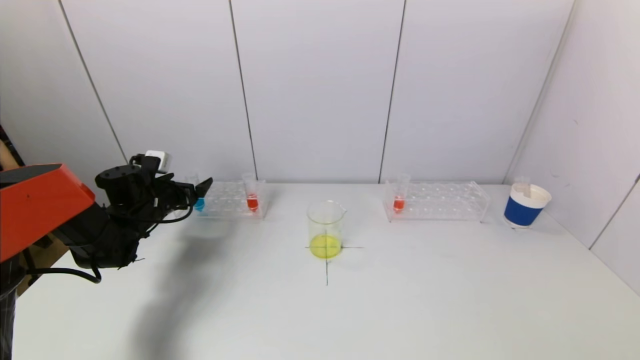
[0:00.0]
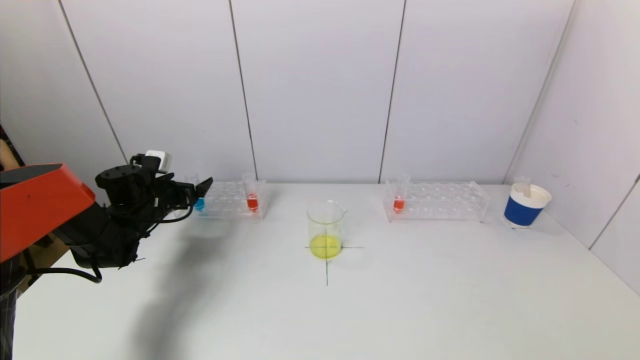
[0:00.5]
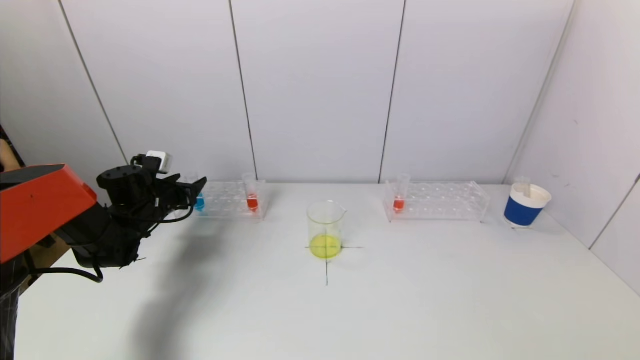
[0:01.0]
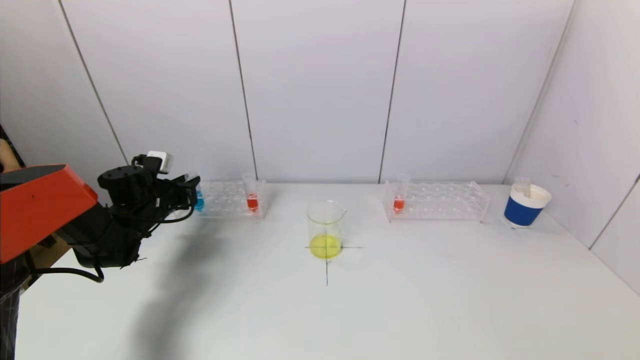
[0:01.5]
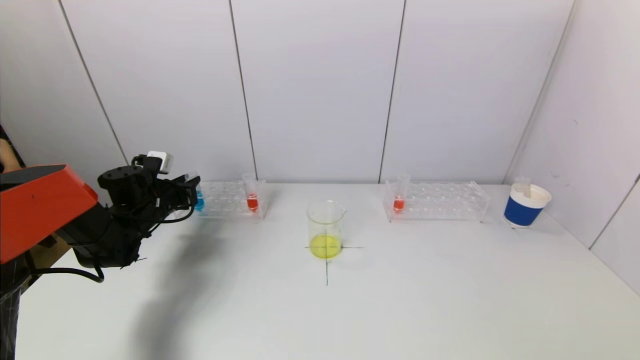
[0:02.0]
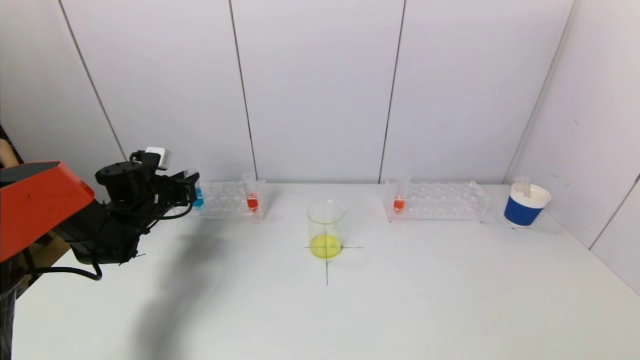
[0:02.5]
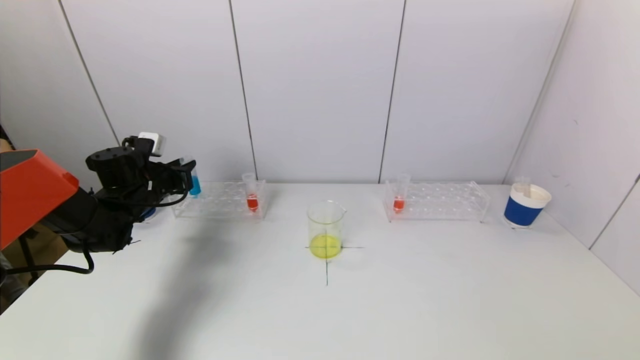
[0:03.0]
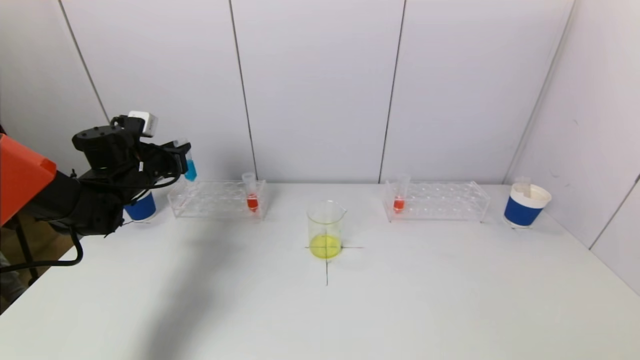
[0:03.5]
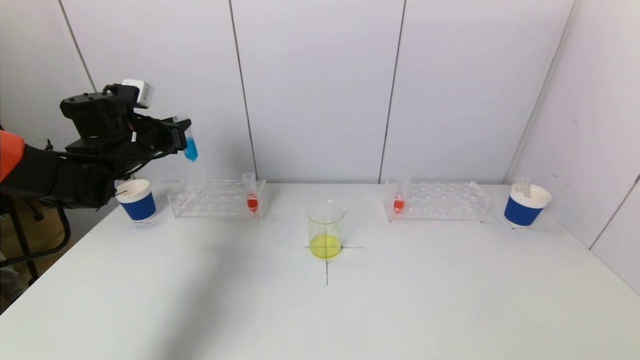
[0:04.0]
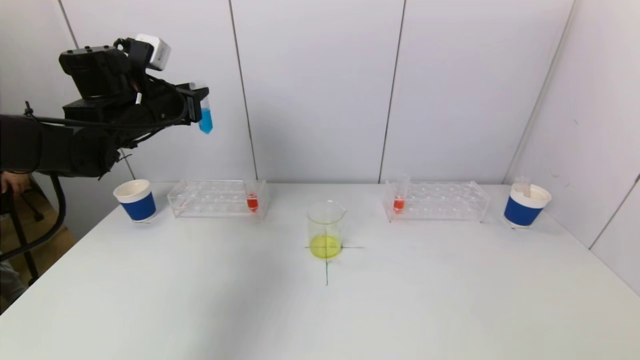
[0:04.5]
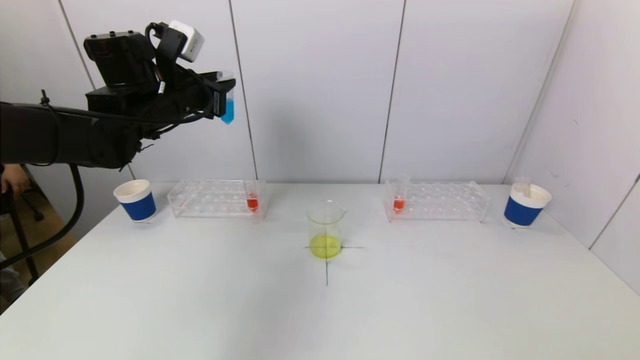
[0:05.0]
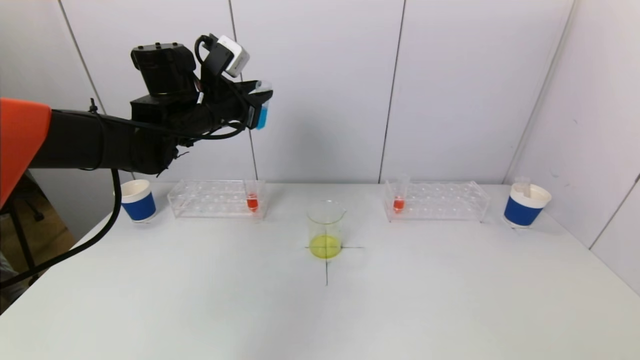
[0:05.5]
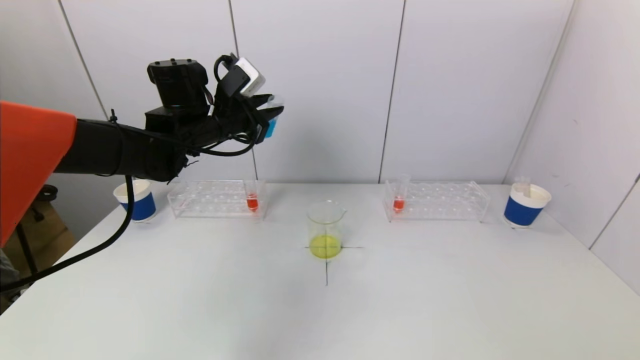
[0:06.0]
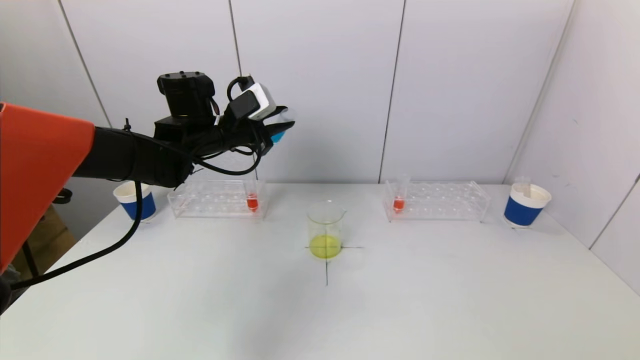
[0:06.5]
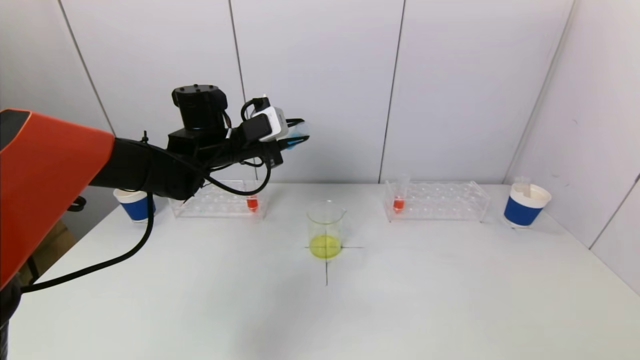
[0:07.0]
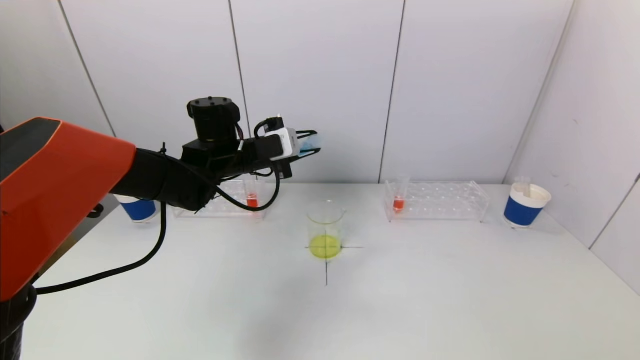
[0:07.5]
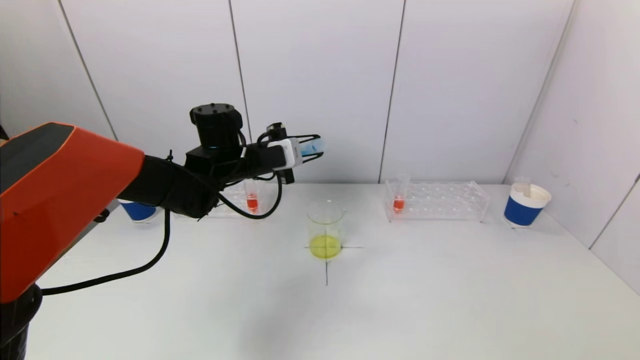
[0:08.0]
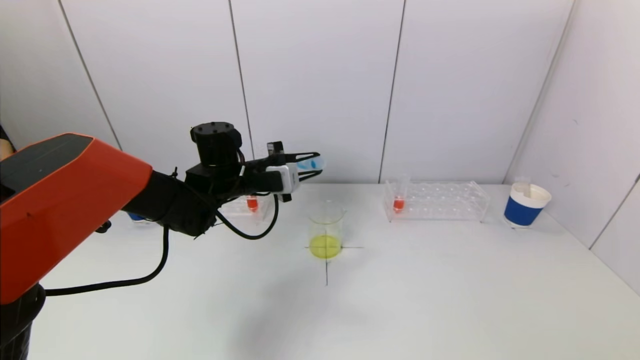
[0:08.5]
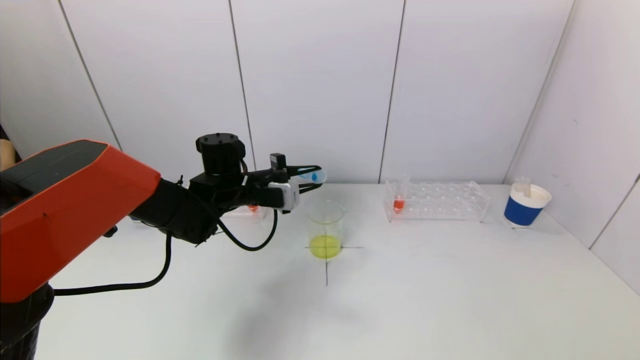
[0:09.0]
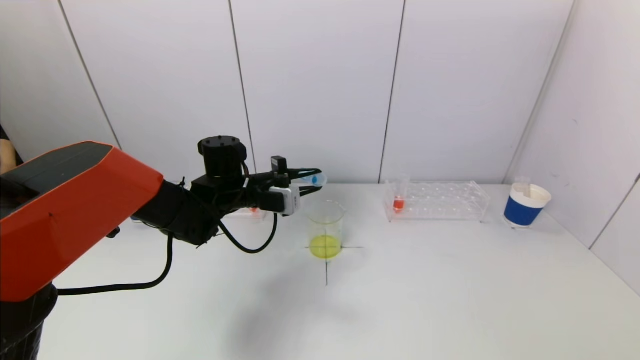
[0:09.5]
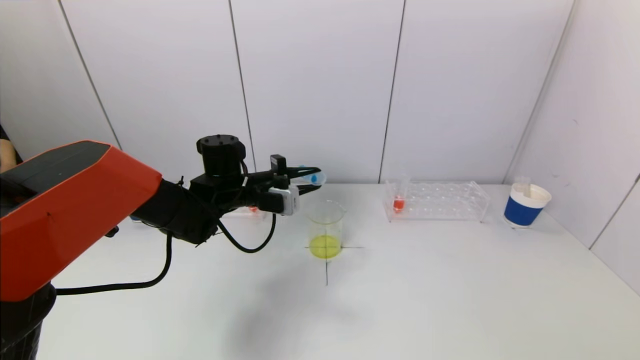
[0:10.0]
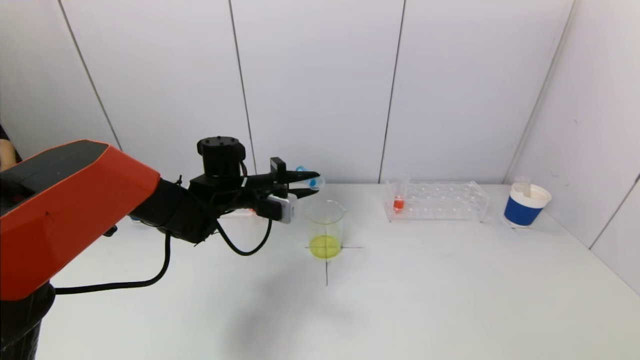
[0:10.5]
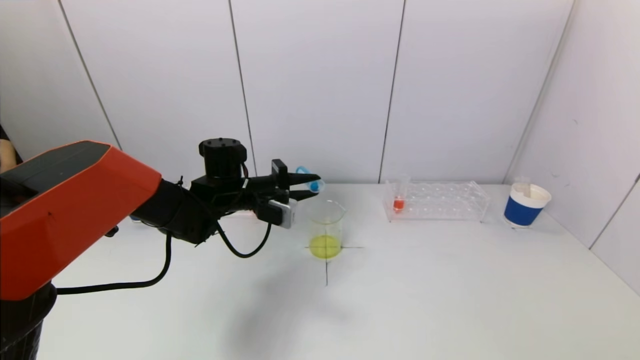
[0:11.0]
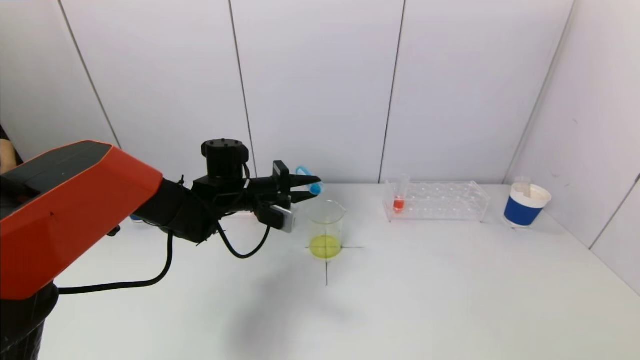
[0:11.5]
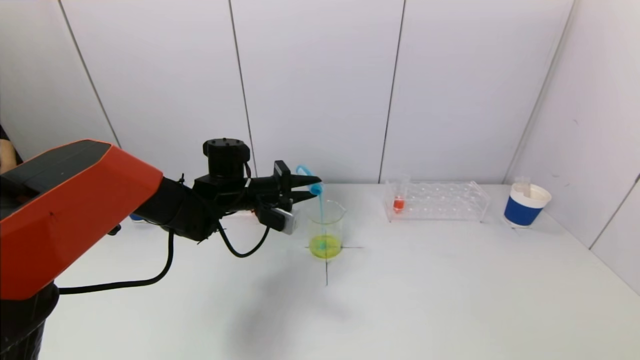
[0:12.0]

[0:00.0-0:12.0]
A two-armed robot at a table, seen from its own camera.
Task of the whole recording: pick up a test tube with pigment on left test tube rack and a test tube with pigment on right test tube rack by grippers and pour them into the beaker.
0:00.0 to 0:02.0: The left gripper closes up.
0:02.0 to 0:04.0: The left gripper heads upward, covering approximately 15 cm.
0:04.0 to 0:06.0: The left gripper moves to the right, roughly 15 cm.
0:06.0 to 0:08.0: The left gripper travels downward by some 5 cm.
0:08.0 to 0:10.0: The left gripper moves about 5 cm.
0:10.0 to 0:12.0: The grippers make only small movements.

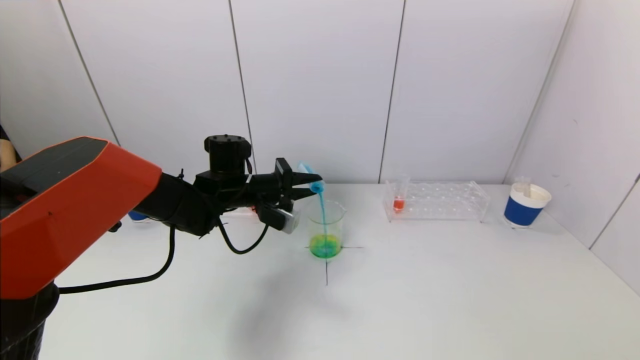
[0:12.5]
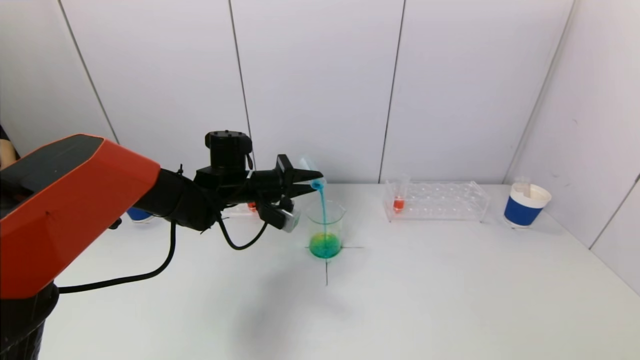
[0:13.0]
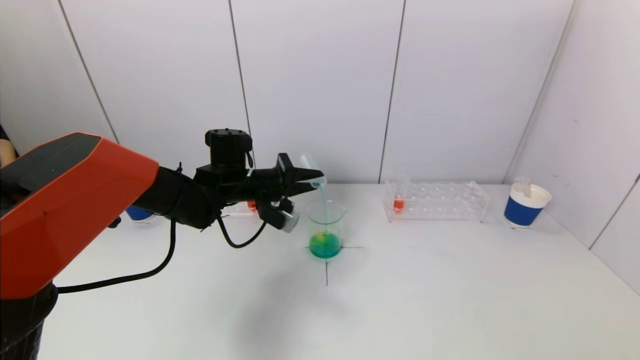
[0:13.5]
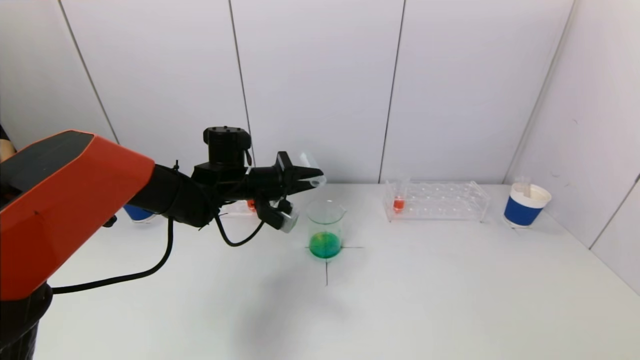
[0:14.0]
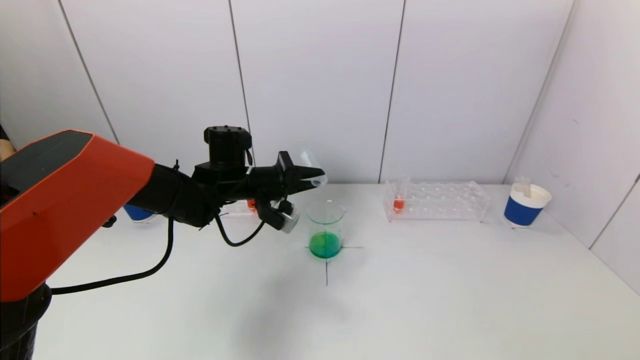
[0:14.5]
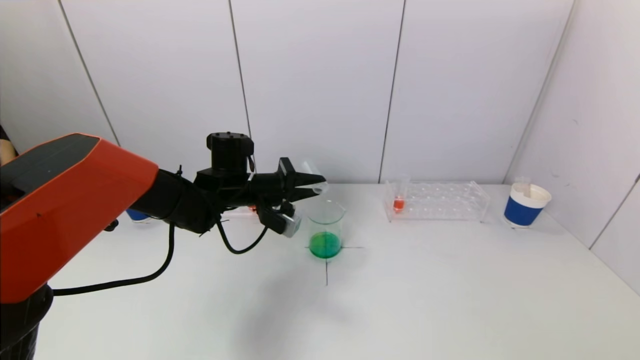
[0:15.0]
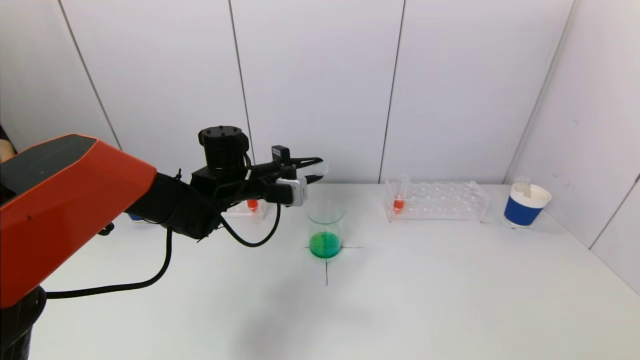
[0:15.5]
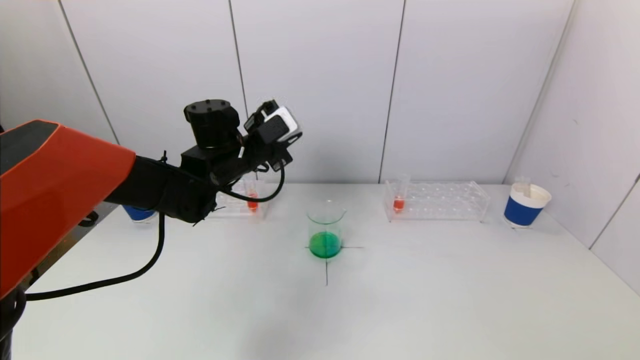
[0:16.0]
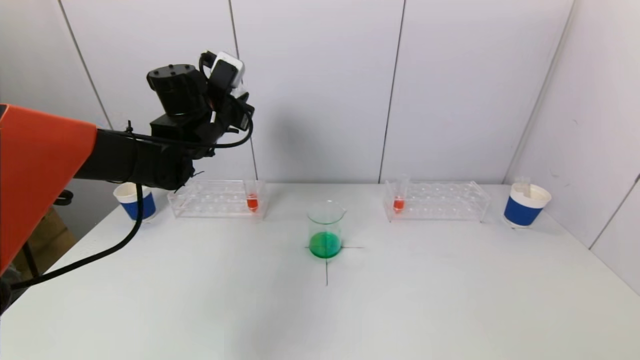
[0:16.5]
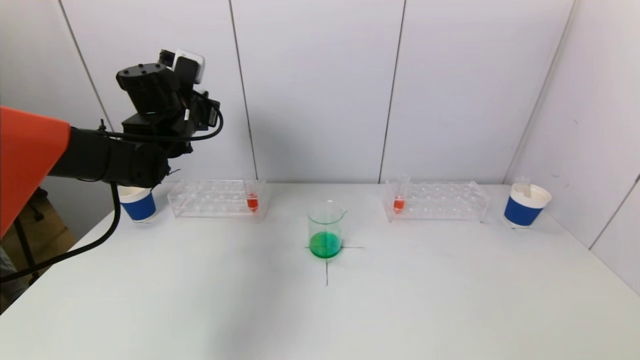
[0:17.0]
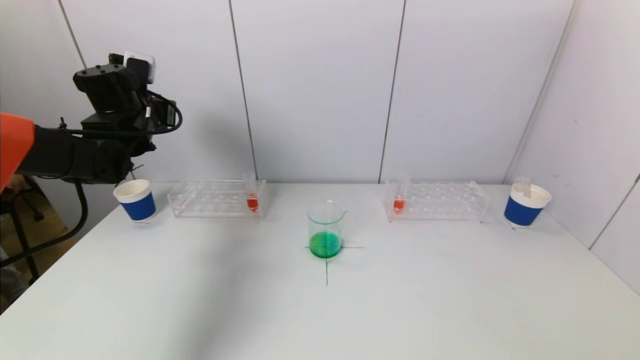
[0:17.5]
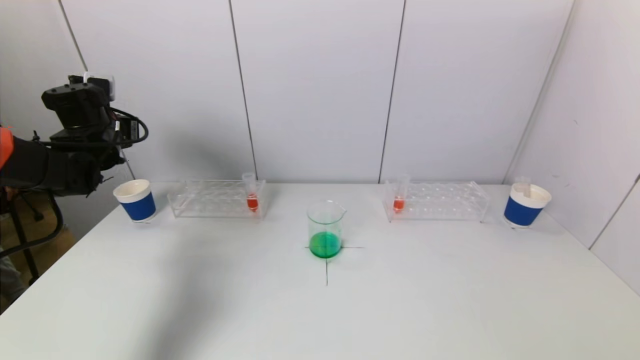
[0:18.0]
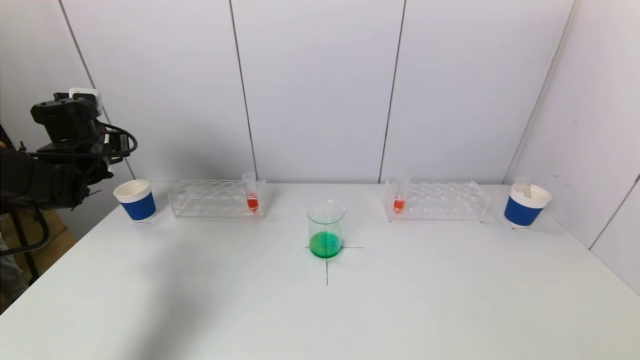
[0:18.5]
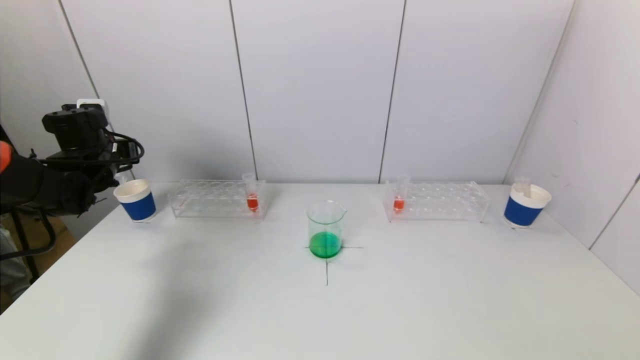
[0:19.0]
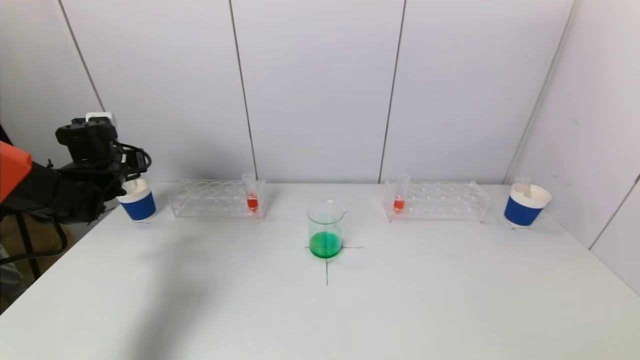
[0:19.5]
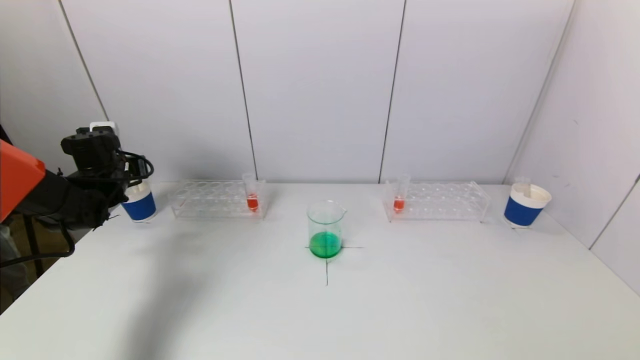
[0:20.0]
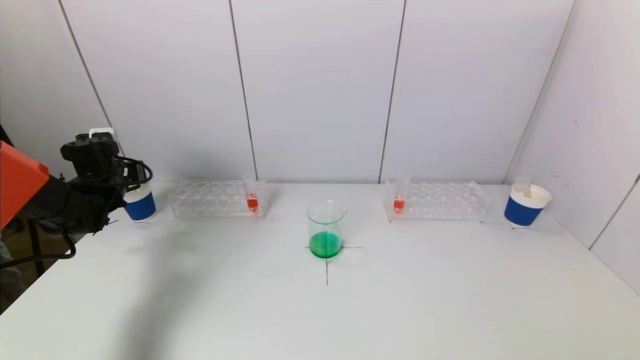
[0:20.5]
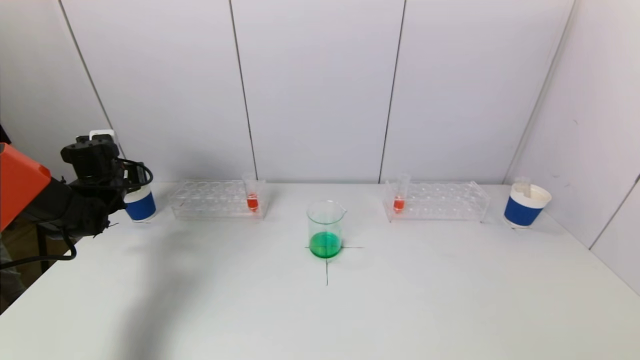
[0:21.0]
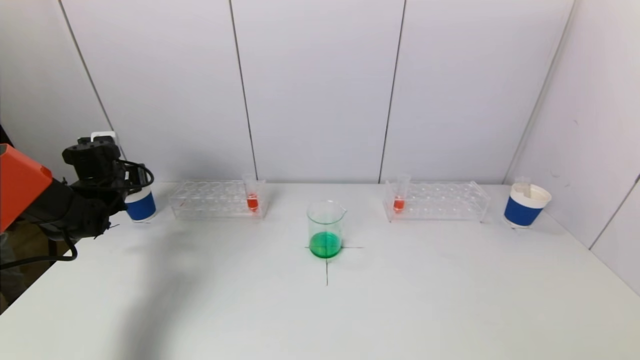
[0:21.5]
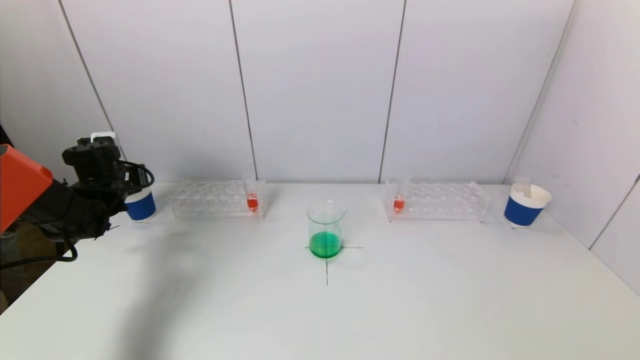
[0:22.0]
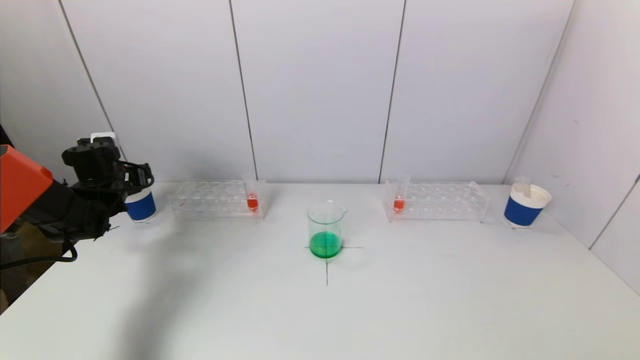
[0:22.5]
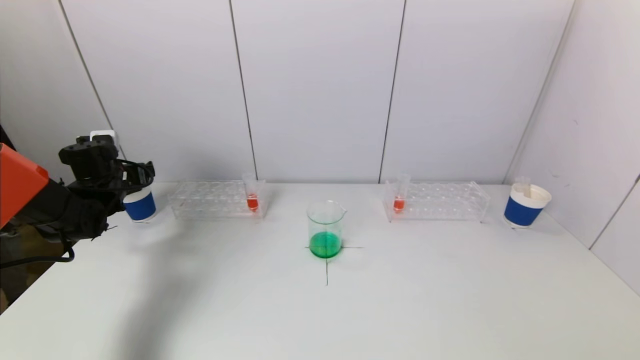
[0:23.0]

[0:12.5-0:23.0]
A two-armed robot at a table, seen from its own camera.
Task of the whole recording: pick up a test tube with pigment on left test tube rack and a test tube with pigment on right test tube rack by grippers and pour them into the beaker.
Step, 0:12.5 to 0:15.0: Pour the blue reagent into the graduated cylinder with the left gripper.
Step, 0:15.5 to 0:22.5: Place the test tube into the paper cup with the left gripper.
0:12.5 to 0:14.5: The grippers stay close to where they were, moving slightly.
0:14.5 to 0:16.5: The left gripper goes roughly 10 cm upward and to the left.
0:16.5 to 0:19.0: The left gripper shifts about 20 cm to the left.
0:19.0 to 0:21.0: The left gripper is displaced downward by approximately 5 cm.
0:21.0 to 0:23.0: The left gripper opens its fingers.
